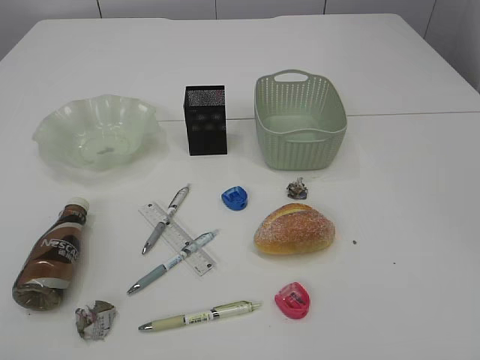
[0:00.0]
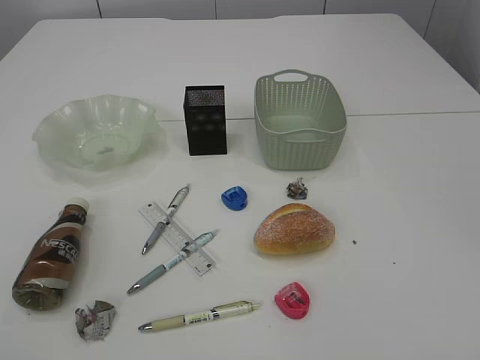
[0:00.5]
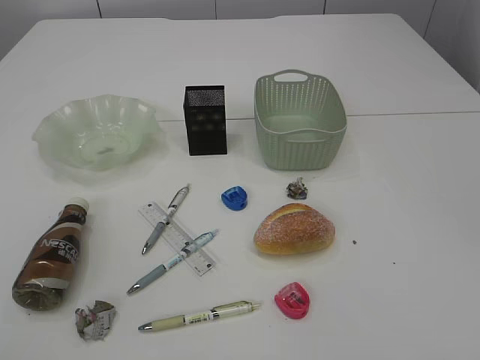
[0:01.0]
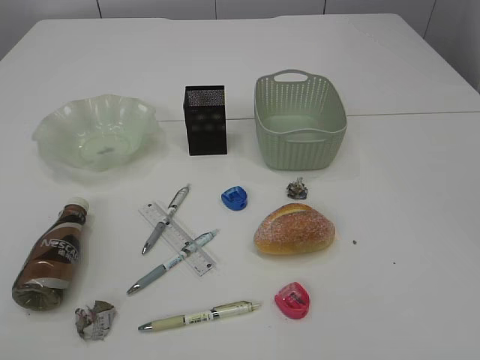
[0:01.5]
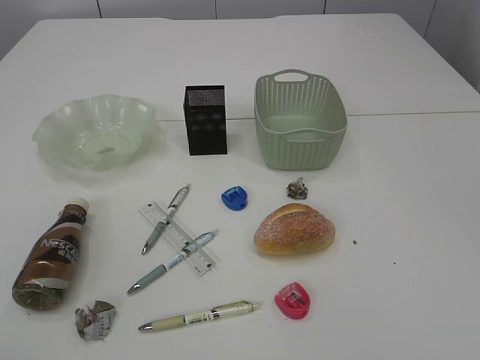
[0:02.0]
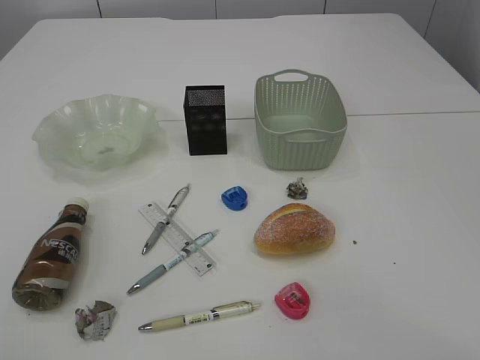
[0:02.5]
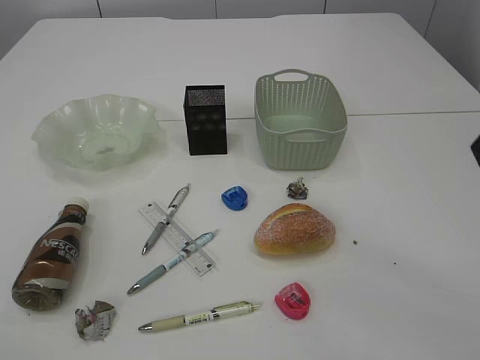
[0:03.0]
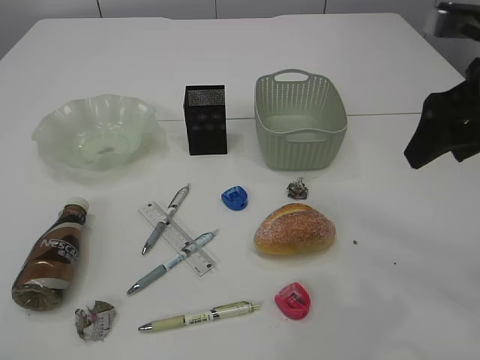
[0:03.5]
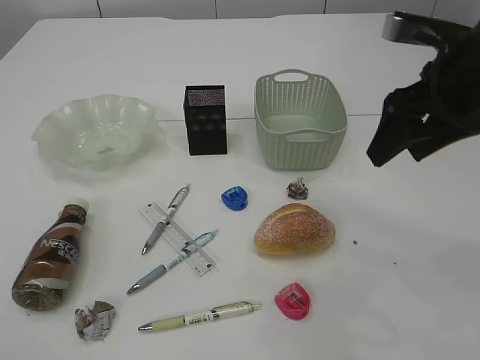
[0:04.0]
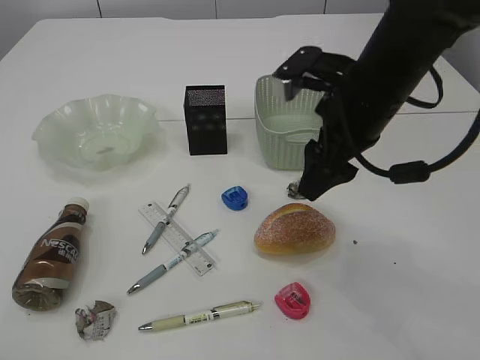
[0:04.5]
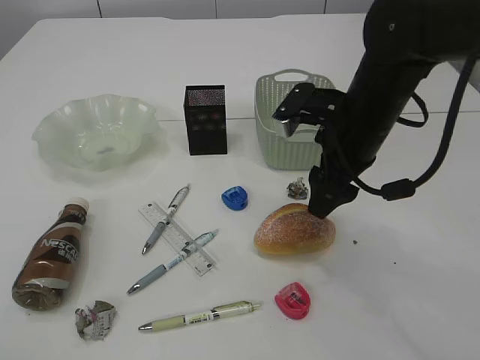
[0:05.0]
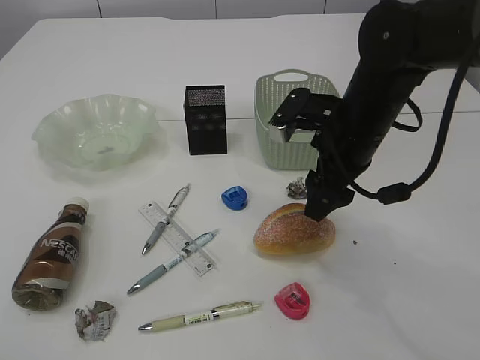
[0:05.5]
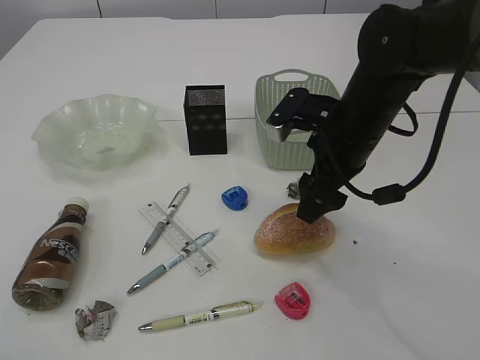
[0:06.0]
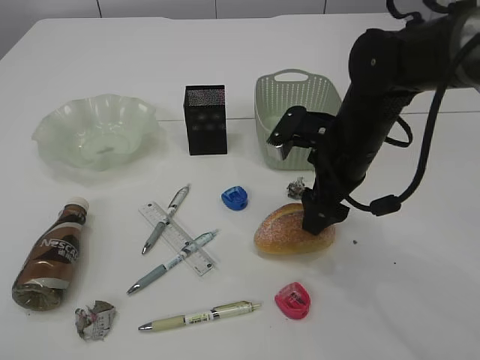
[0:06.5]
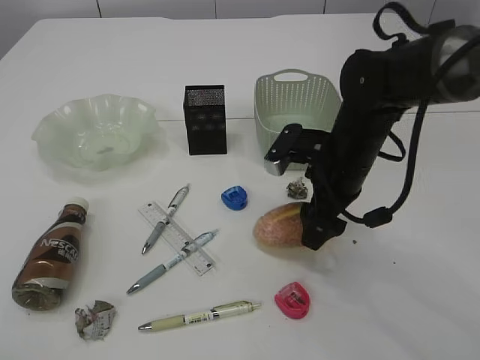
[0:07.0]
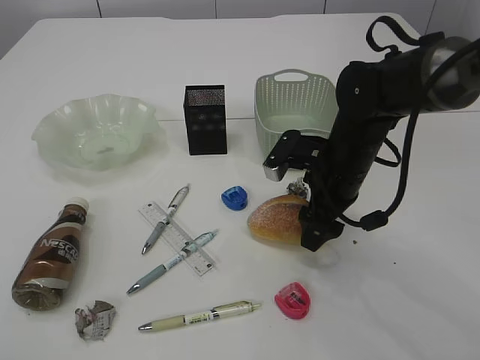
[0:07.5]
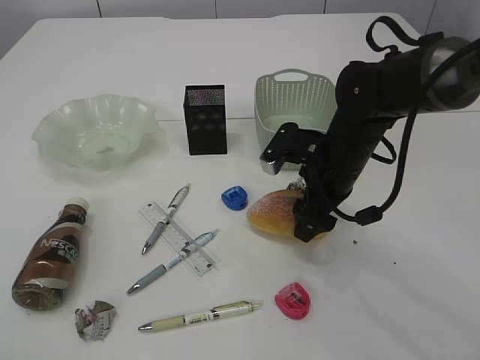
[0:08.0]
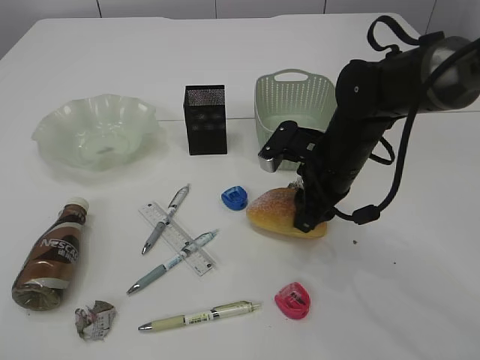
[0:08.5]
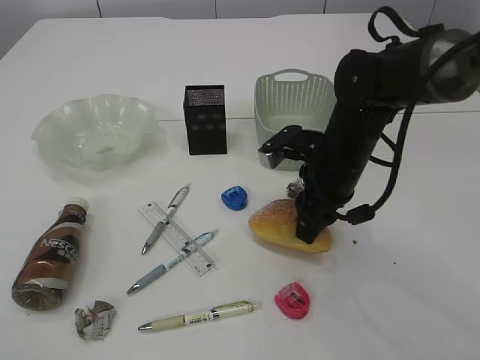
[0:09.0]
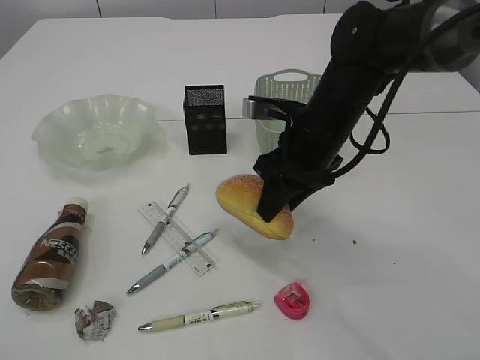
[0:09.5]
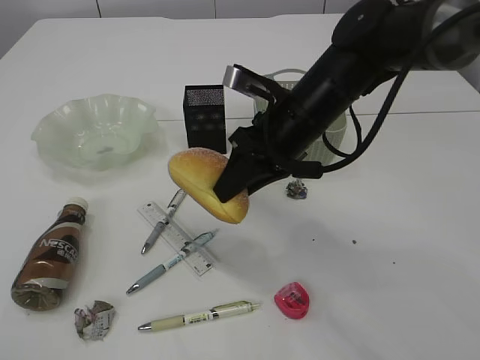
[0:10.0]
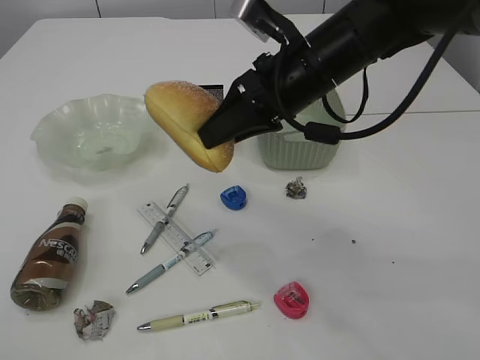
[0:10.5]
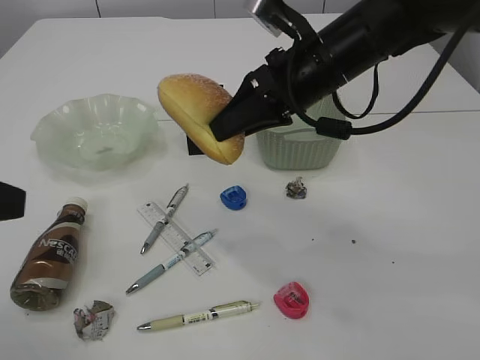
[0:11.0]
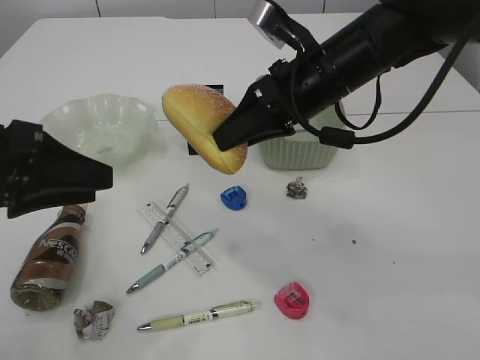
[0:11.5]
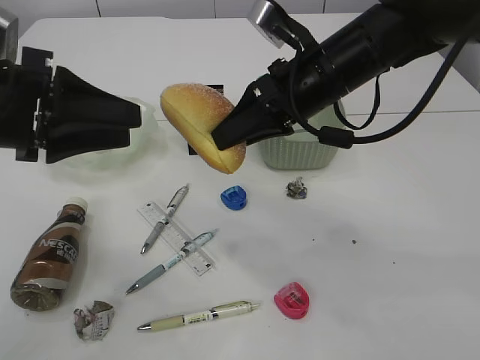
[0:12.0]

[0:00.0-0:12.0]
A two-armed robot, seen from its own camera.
2.0 to 4.0 s: The right gripper heads forward, covering approximately 30 cm.
4.0 to 6.0 s: The right gripper moves to the left and downward, roughly 15 cm.
6.0 to 8.0 s: The right gripper shifts approximately 5 cm downward.
8.0 to 10.0 s: The right gripper travels upward and to the left by approximately 10 cm, and closes.
10.0 to 12.0 s: The right gripper moves roughly 5 cm, while the left gripper is displaced forward by about 20 cm.

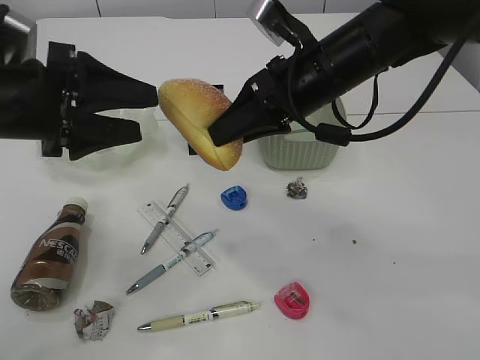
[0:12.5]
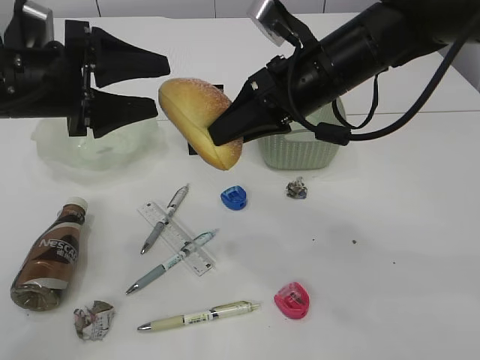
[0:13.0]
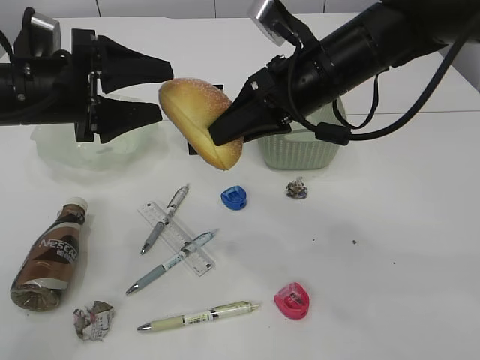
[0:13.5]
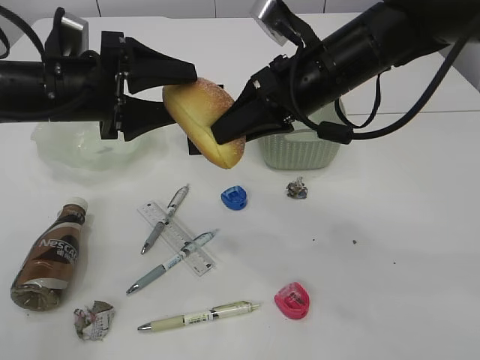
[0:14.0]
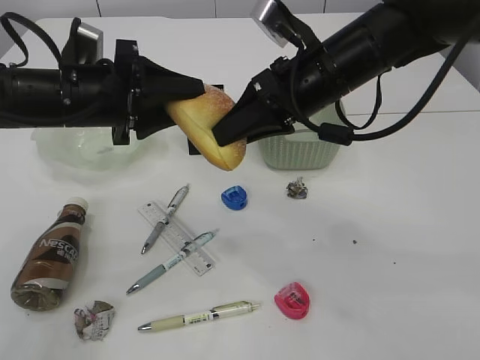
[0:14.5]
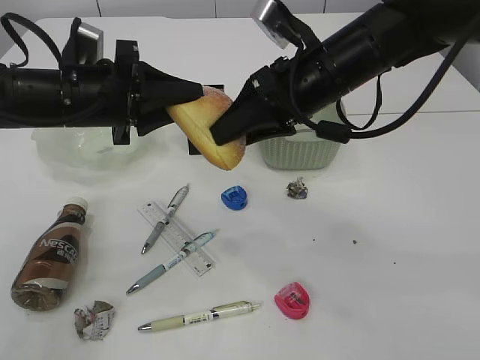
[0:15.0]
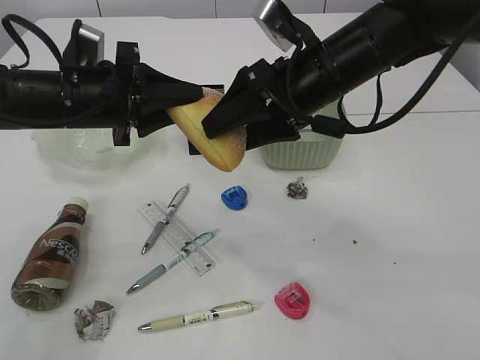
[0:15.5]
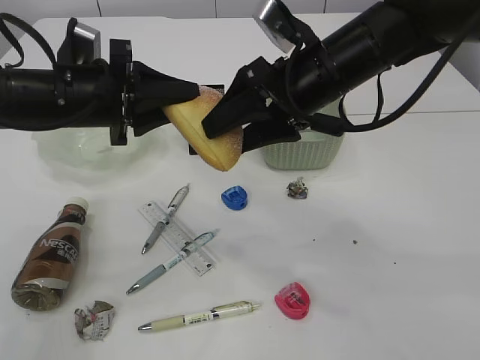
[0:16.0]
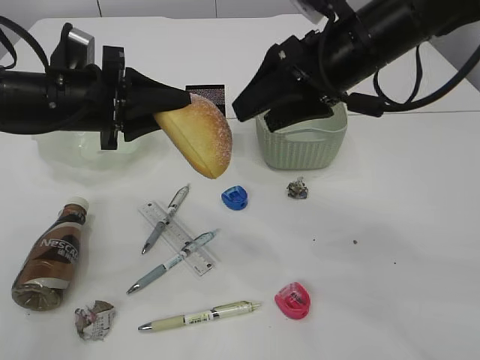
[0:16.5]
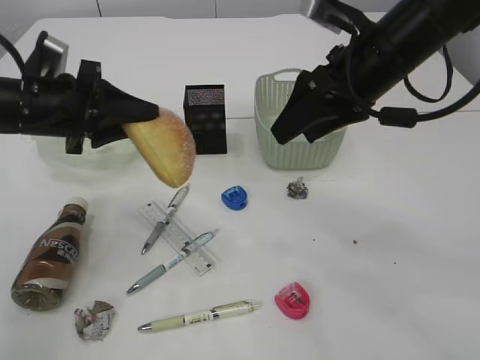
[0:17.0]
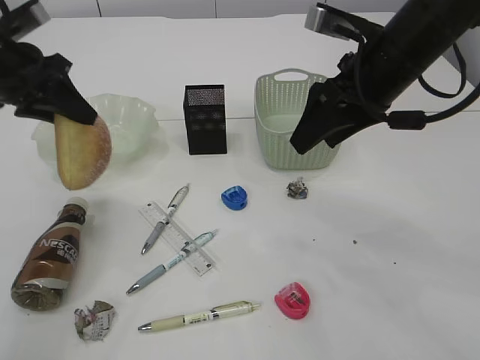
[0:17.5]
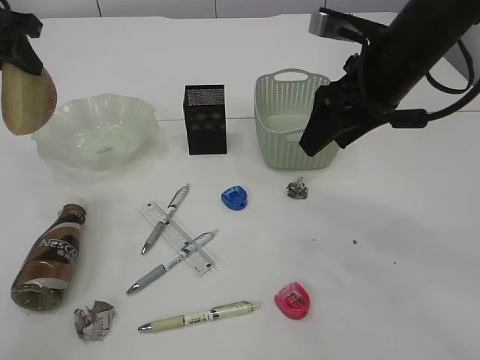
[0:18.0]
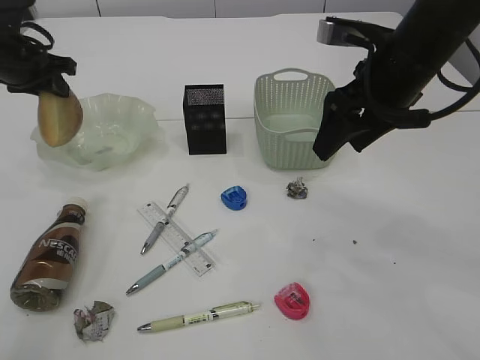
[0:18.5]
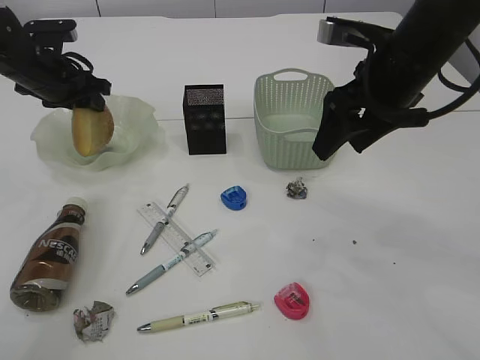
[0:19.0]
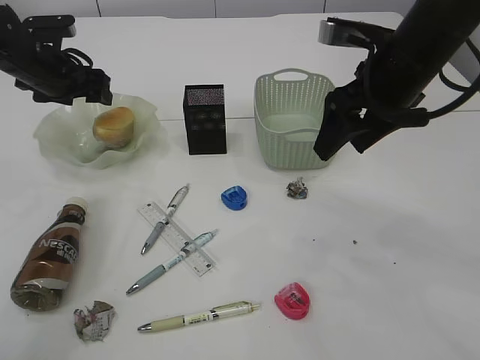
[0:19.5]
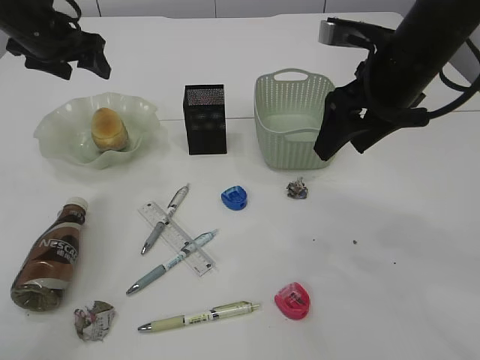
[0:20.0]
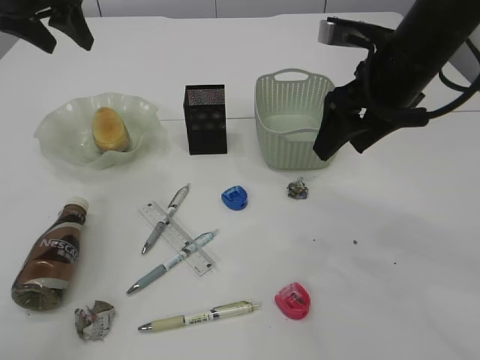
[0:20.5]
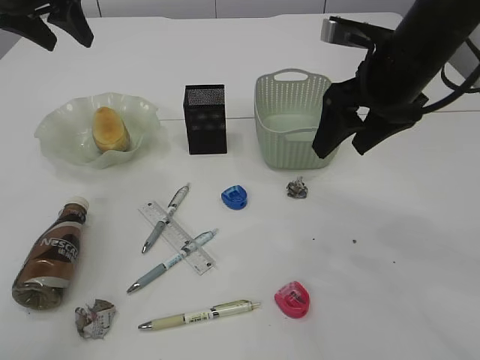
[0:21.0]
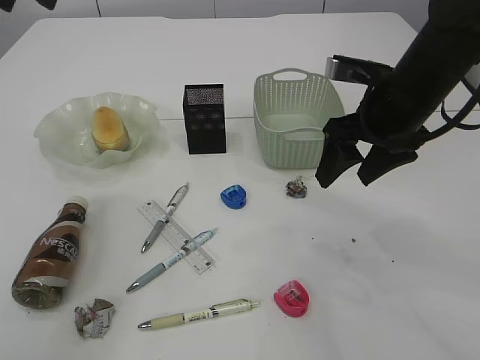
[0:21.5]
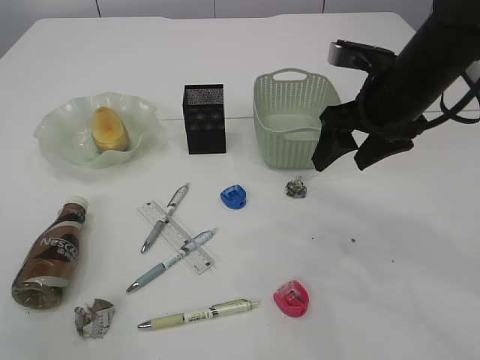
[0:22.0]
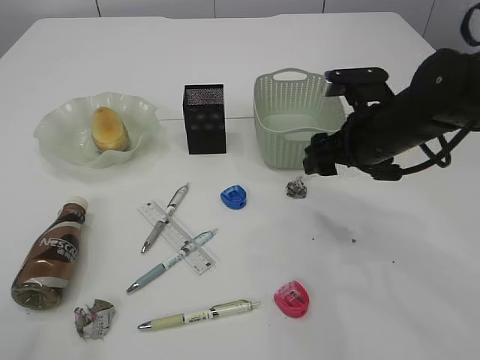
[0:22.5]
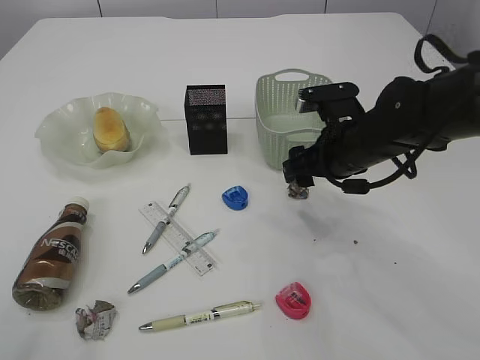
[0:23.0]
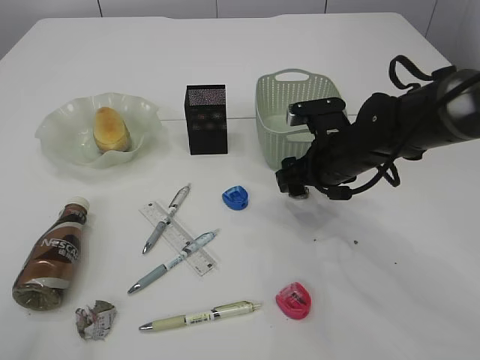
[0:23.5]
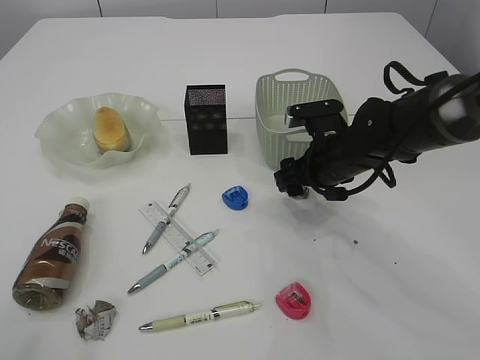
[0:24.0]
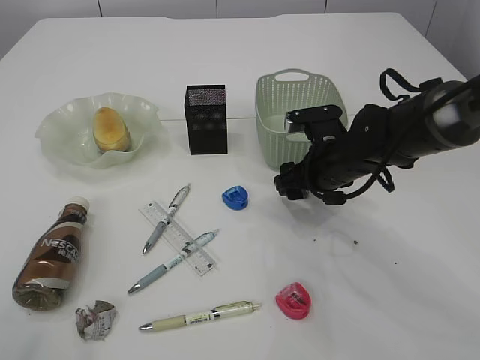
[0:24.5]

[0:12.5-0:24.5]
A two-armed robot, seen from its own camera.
Step, 12.5 to 16.0 s: Hand over the bread.
Step, 16.5 to 19.5 s: place the bread in the plate.
12.5 to 14.5 s: The left gripper is displaced forward by roughly 5 cm.
14.5 to 16.5 s: The right gripper opens.
16.5 to 18.5 s: The left gripper heads forward and to the left, covering about 20 cm.
18.5 to 20.5 s: The left gripper moves upward, roughly 10 cm, and opens.
20.5 to 22.5 s: The right gripper goes roughly 10 cm downward, while the left gripper travels backward by approximately 30 cm.
22.5 to 24.5 s: The right gripper goes about 5 cm downward.

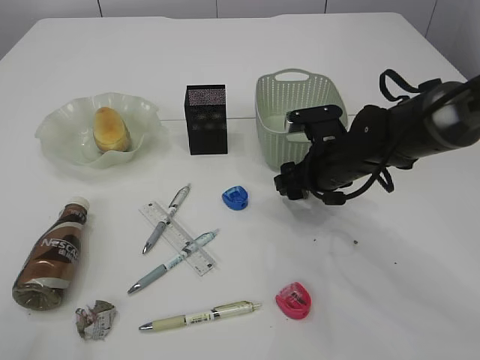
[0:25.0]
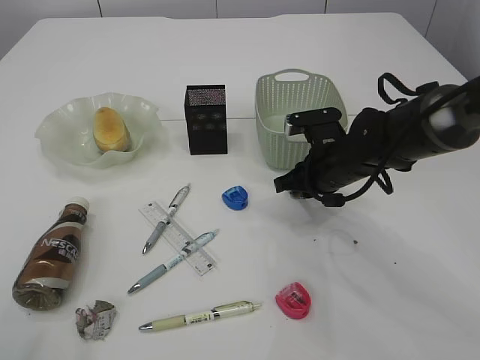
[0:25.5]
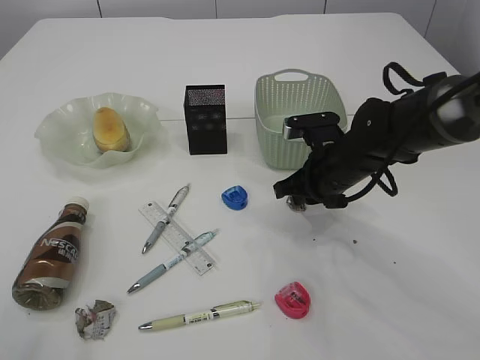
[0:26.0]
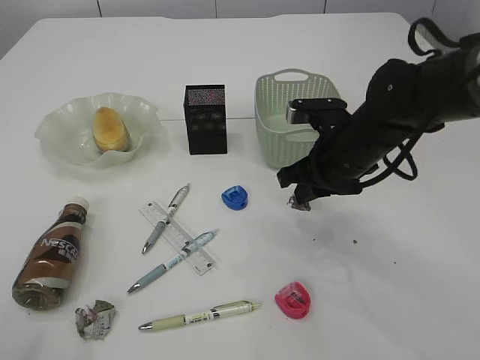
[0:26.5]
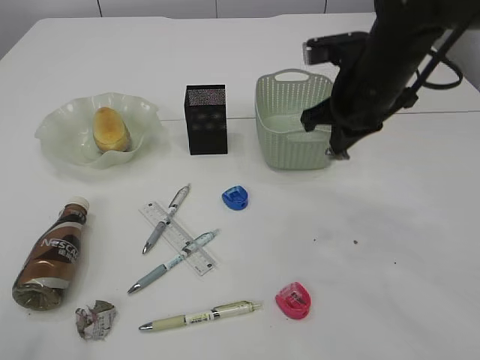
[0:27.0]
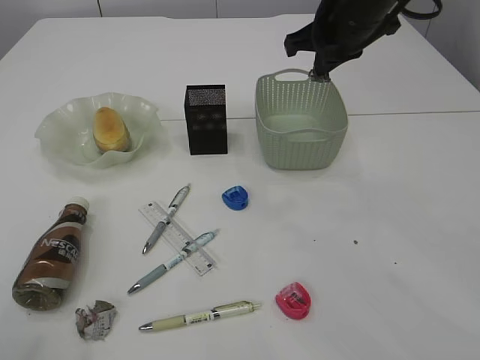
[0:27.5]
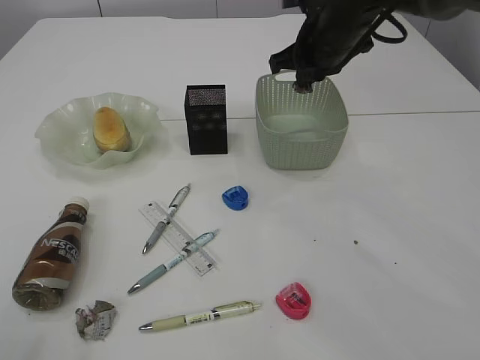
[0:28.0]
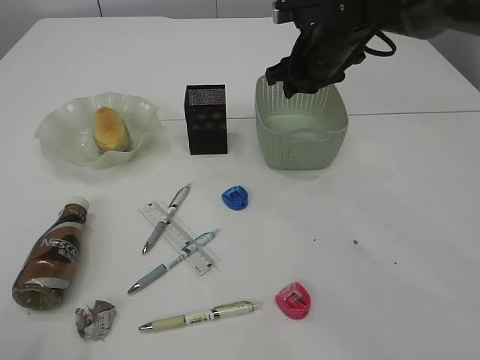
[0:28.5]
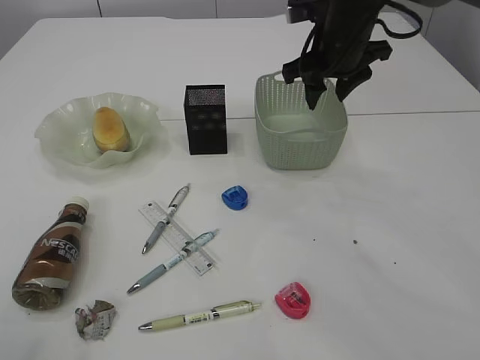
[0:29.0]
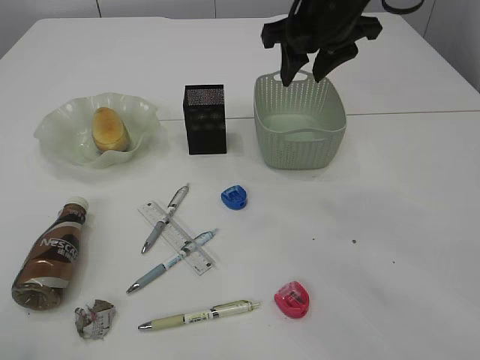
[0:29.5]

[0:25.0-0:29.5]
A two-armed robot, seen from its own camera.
Step, 27.0 to 29.5 s: Place the waste paper in the basket.
25.0 to 27.0 s: The right gripper moves upward, some 15 cm, and closes its fingers.
27.0 to 29.5 s: The right gripper travels upward and forward by about 10 cm, and opens its fingers.
